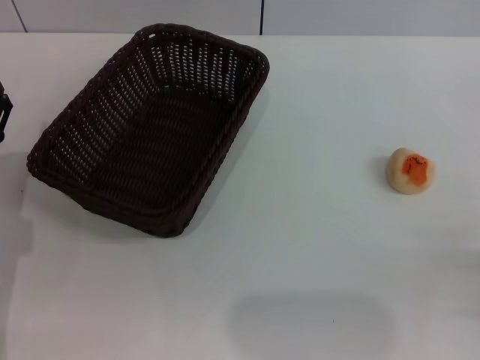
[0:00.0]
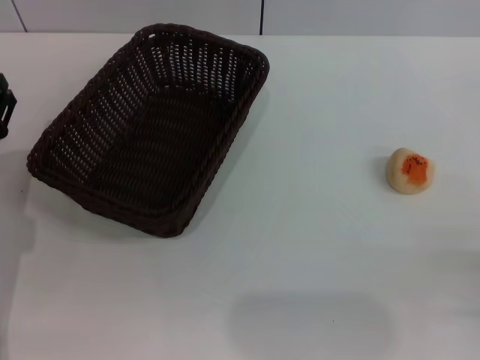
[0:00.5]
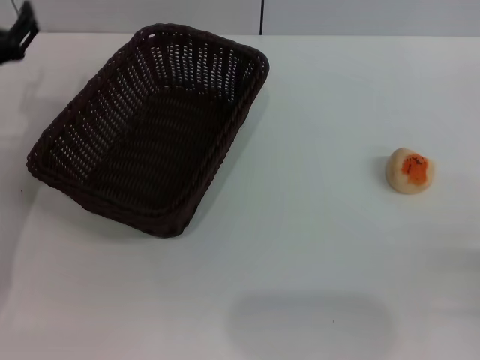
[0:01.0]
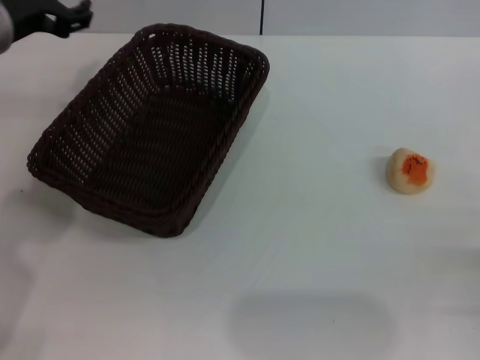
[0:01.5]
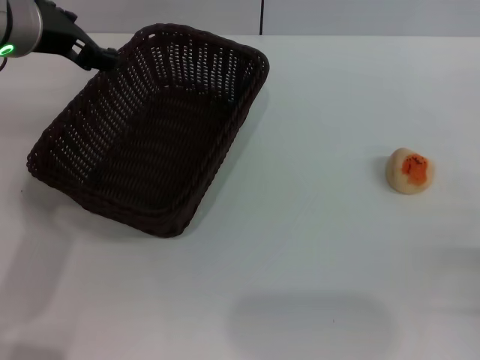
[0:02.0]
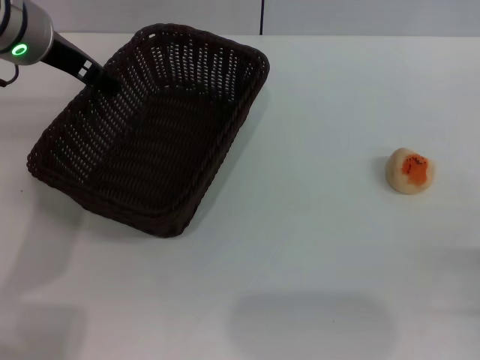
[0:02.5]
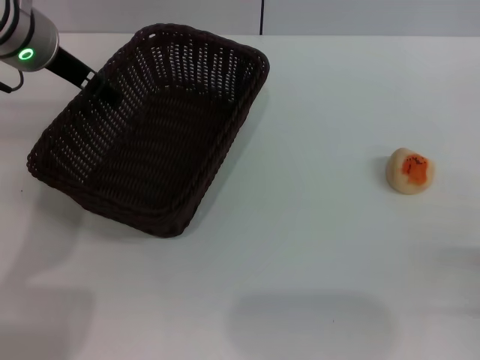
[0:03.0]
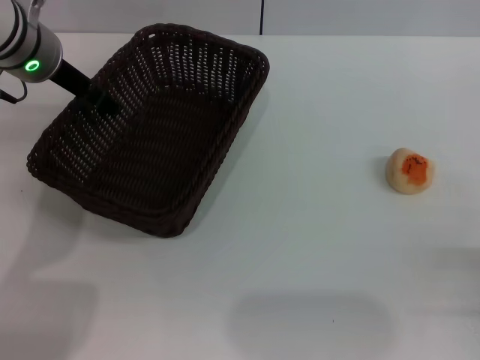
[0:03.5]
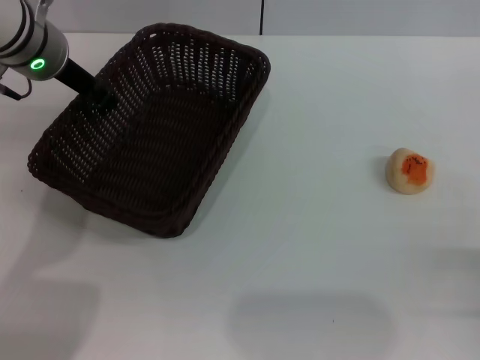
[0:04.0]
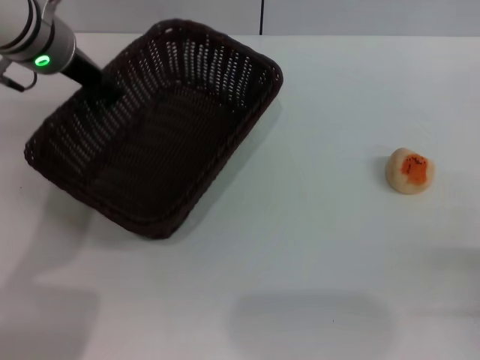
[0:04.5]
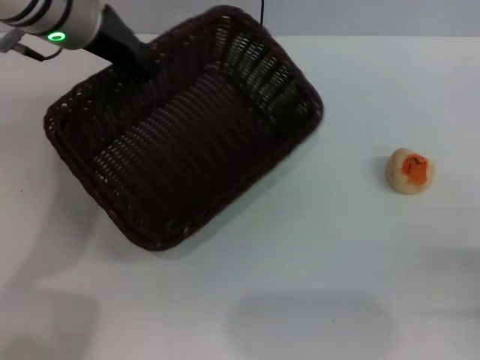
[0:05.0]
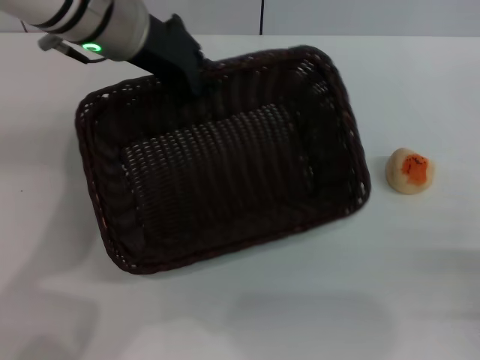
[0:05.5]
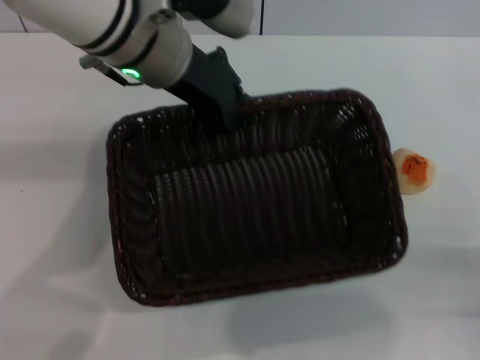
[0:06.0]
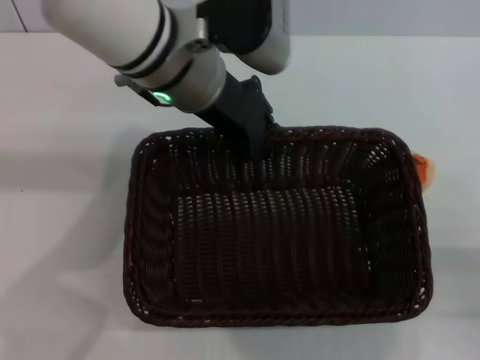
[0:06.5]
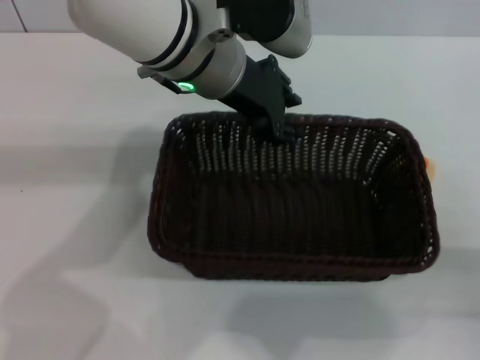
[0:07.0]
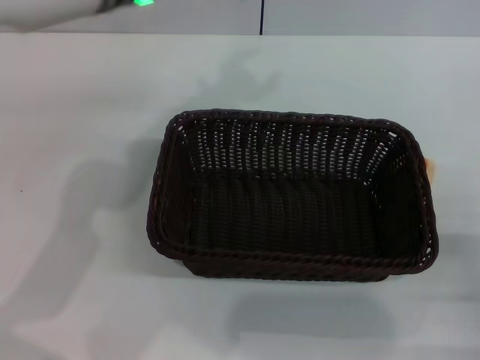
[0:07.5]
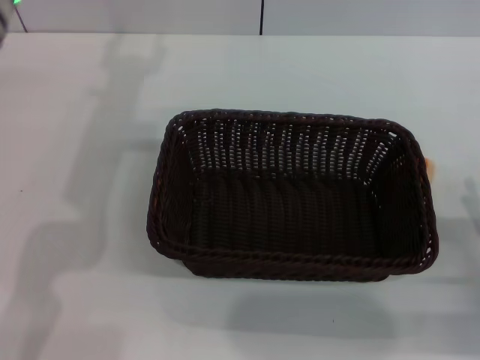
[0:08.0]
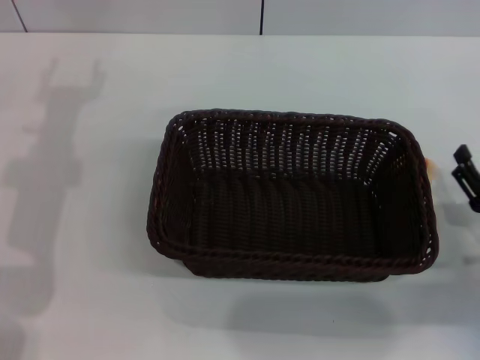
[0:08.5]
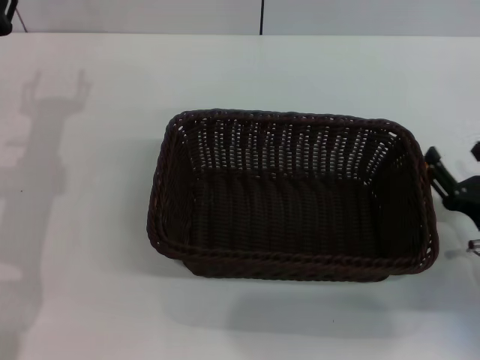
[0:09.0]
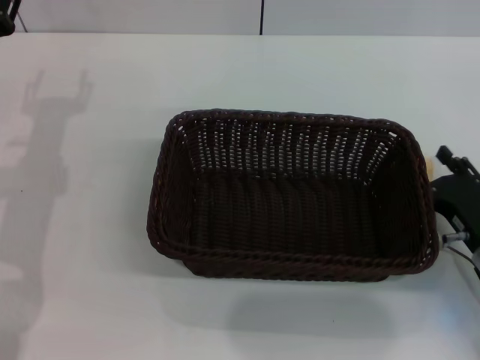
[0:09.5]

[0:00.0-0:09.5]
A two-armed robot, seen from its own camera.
Step, 0:00.0 to 0:07.0: Move the basket to the center of view with the left gripper.
0:00.0 to 0:02.0: The left gripper goes approximately 25 cm upward, forward and to the right.
0:02.0 to 0:04.0: The left gripper moves roughly 5 cm.
0:04.0 to 0:05.5: The left gripper moves to the right, roughly 5 cm, and closes its fingers.
0:05.5 to 0:07.5: The left gripper opens.
0:07.5 to 0:09.5: The right gripper moves forward and to the left, approximately 10 cm, while the left gripper heads to the left, downward and backward, covering approximately 20 cm.

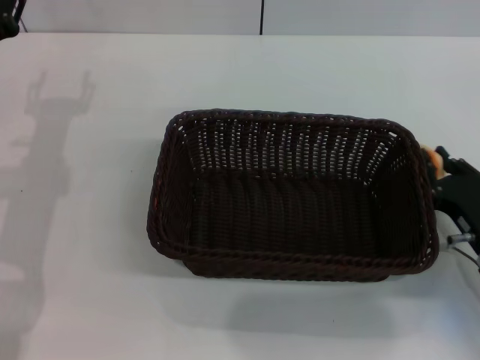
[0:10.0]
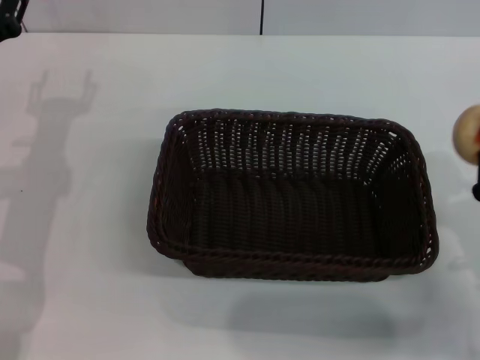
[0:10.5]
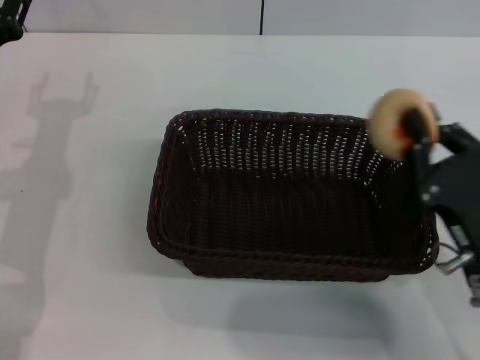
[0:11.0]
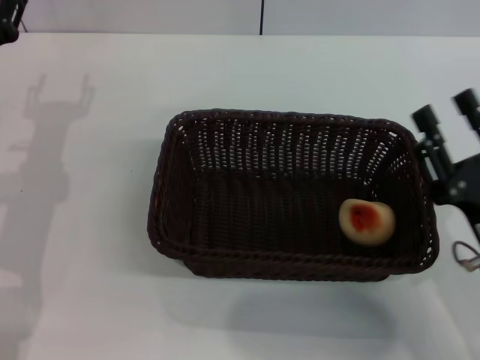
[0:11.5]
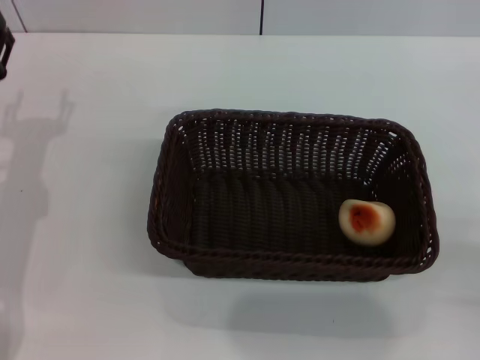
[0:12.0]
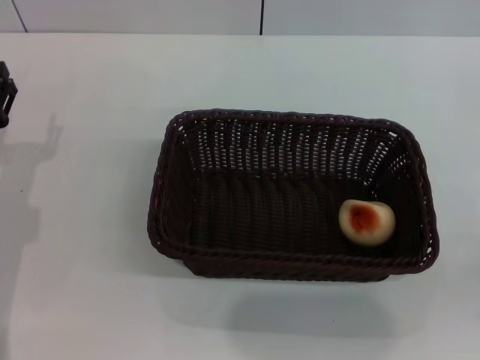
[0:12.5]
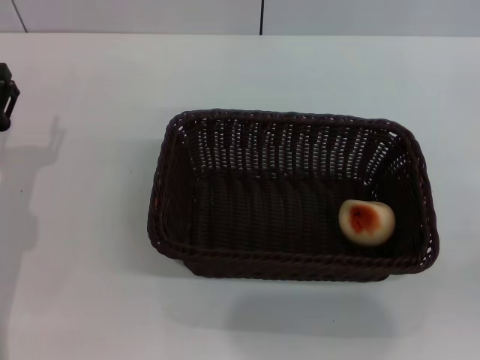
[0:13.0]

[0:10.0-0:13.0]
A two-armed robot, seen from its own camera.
Step, 0:11.0 to 0:11.5: Place the egg yolk pastry into the basket with the right gripper.
0:10.0 to 0:11.5: The right gripper travels upward and backward by roughly 10 cm.
0:11.5 to 0:13.0: The left gripper travels downward and backward by about 10 cm; the right gripper shifts some 15 cm to the right and backward, and opens its fingers.

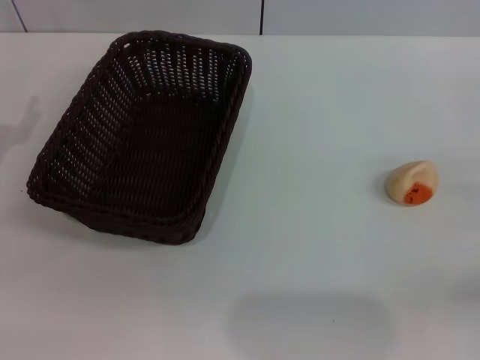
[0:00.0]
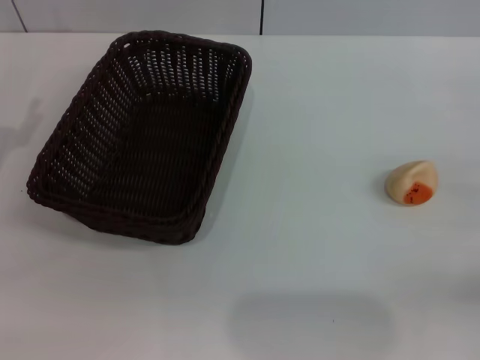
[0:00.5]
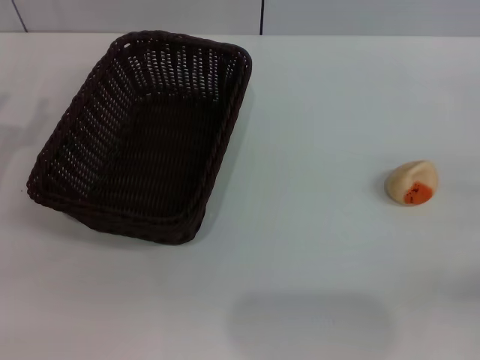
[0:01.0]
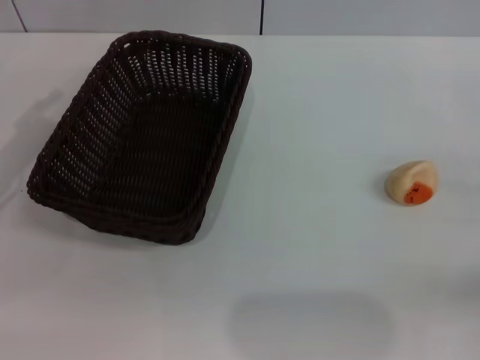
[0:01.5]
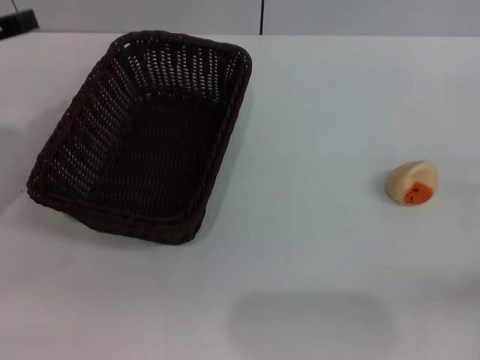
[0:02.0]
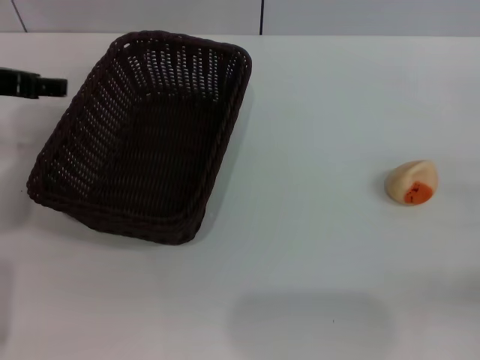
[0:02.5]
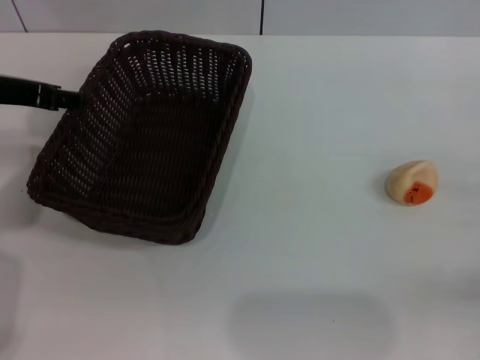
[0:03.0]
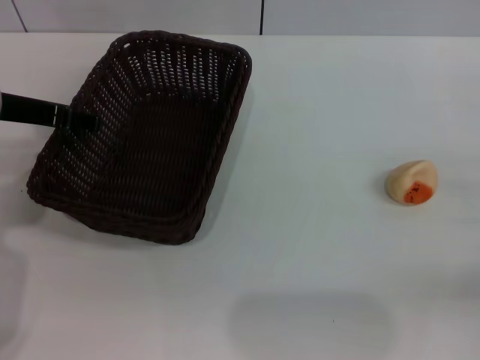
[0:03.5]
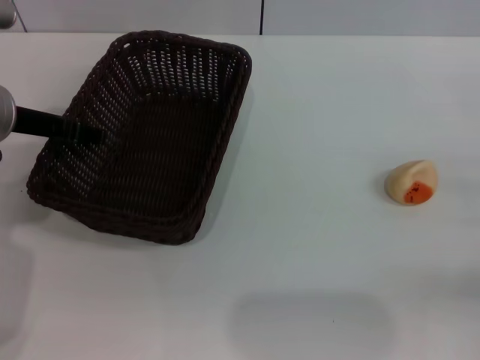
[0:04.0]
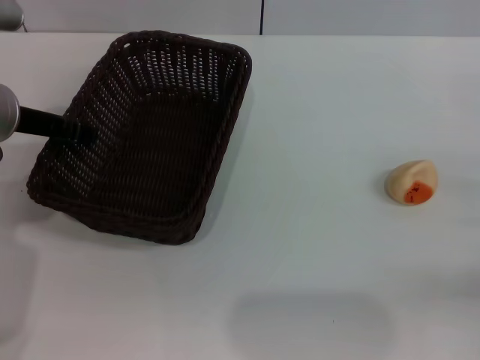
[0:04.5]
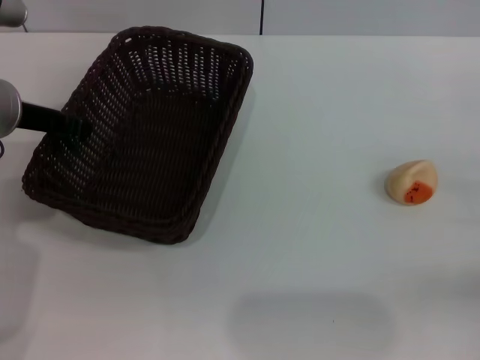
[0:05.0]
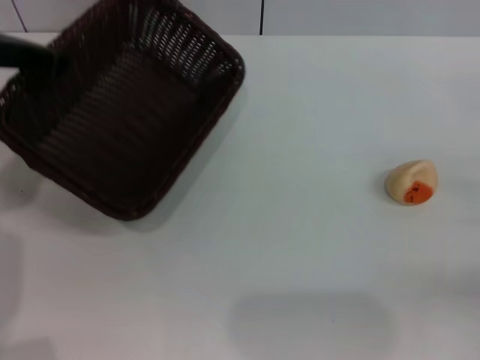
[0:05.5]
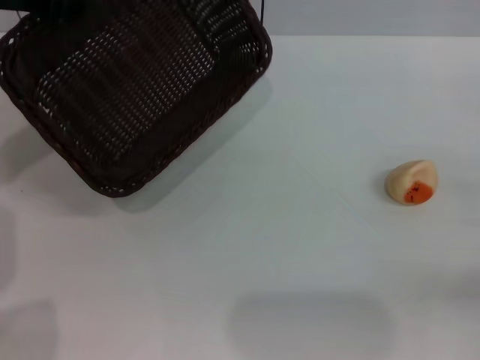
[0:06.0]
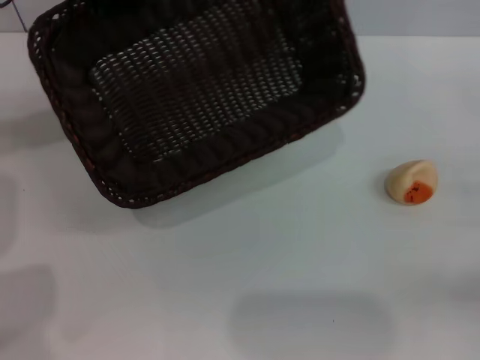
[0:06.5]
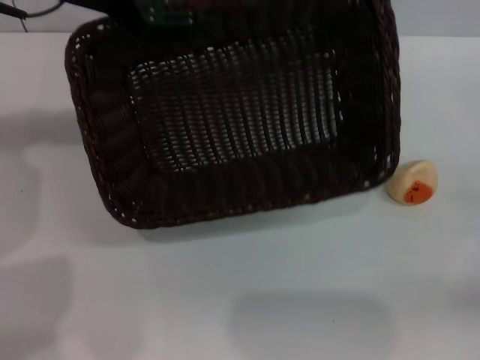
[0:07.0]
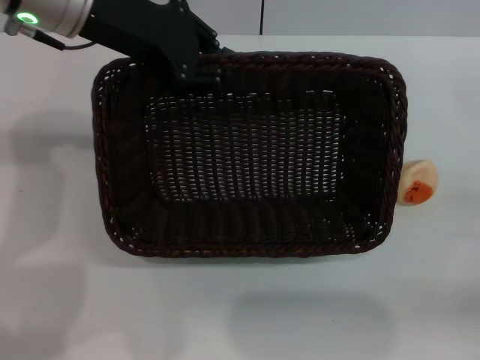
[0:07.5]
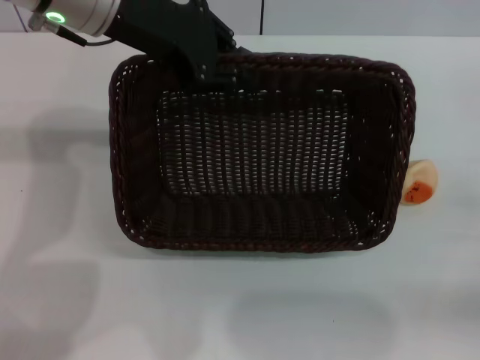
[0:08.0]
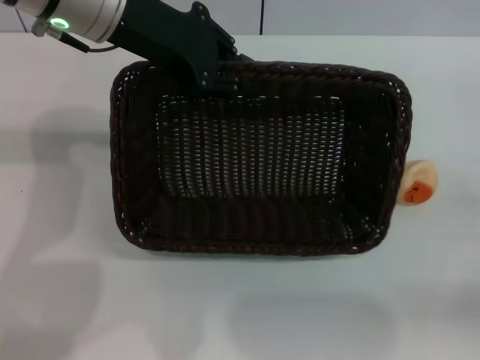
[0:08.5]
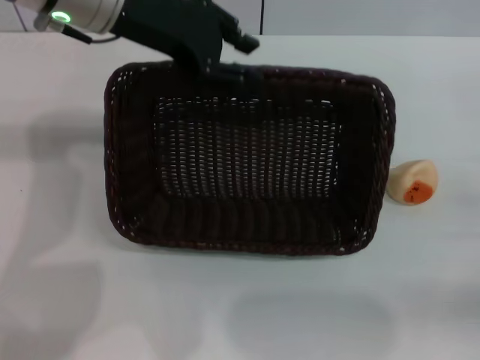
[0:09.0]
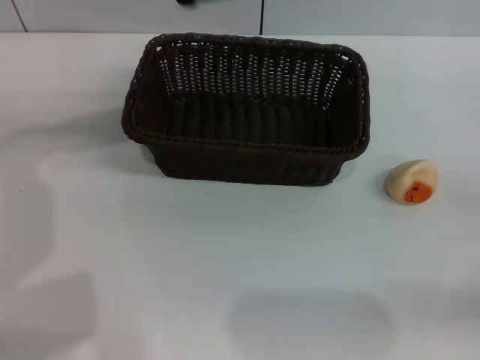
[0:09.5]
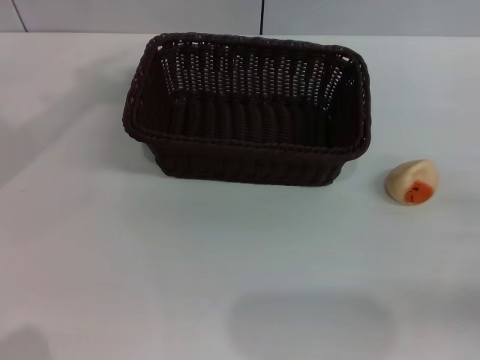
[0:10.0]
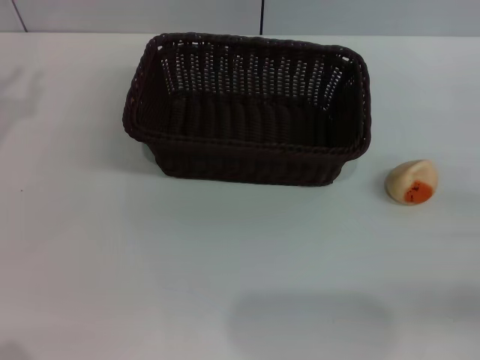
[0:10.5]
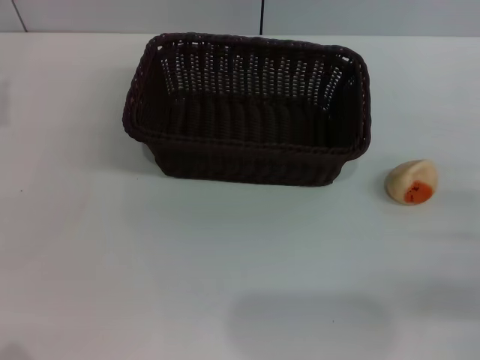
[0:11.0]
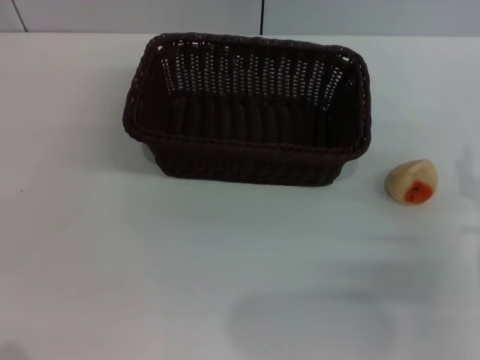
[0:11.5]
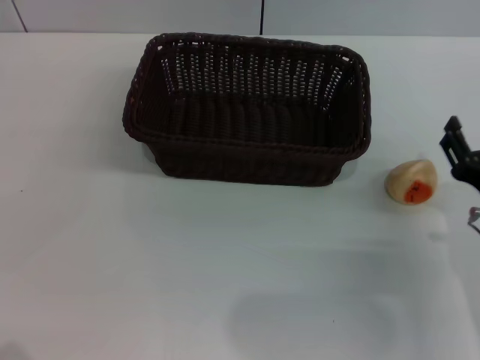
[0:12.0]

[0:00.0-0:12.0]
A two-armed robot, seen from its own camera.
Step, 0:00.0 to 0:09.0: Move the basket to the center of view with the left gripper.
0:00.0 to 0:02.0: The left gripper heads upward, covering roughly 10 cm.
0:02.0 to 0:04.0: The left gripper shifts roughly 10 cm to the right and downward.
0:04.0 to 0:06.0: The left gripper heads upward, covering some 10 cm, and closes up.
0:06.0 to 0:08.0: The left gripper is displaced to the right by approximately 10 cm.
0:08.0 to 0:10.0: The left gripper moves to the left, approximately 15 cm.
0:10.0 to 0:12.0: The right gripper heads to the left, covering some 10 cm.

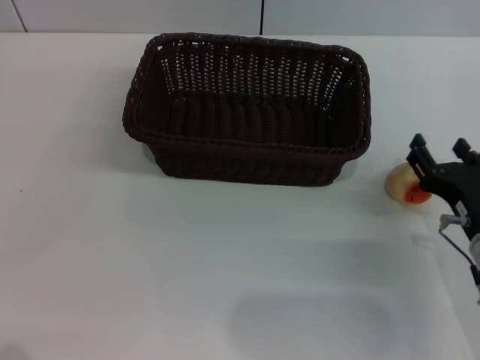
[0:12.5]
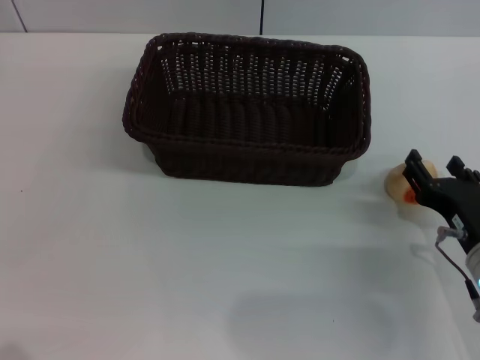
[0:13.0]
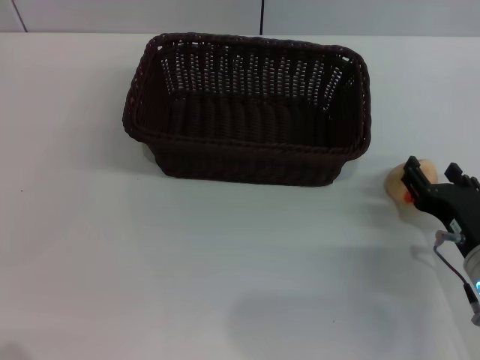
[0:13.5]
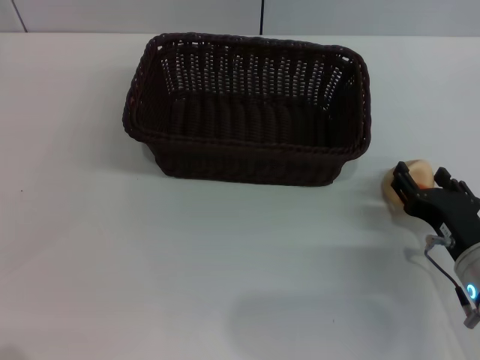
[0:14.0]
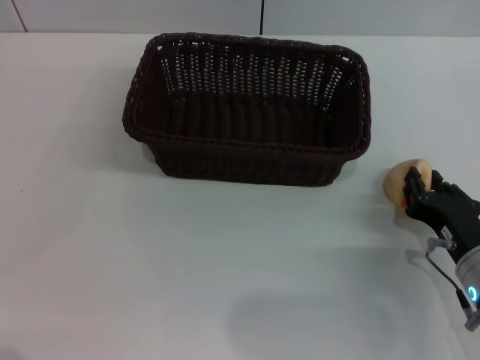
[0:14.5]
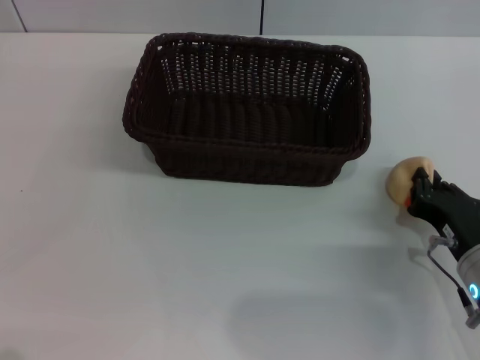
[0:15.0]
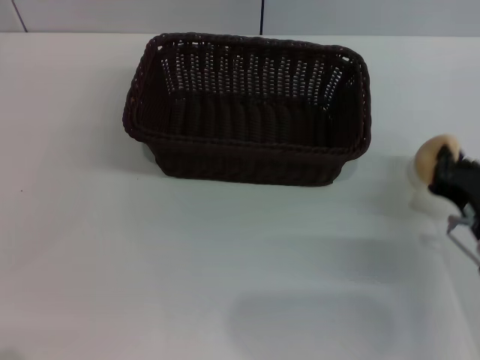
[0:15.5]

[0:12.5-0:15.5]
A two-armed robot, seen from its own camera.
Step, 0:12.5 to 0:15.0: Pick up the egg yolk pastry with the right gripper.
0:12.5 to 0:14.0: The grippers make only small movements.
0:14.0 to 0:15.5: The right gripper closes up.
